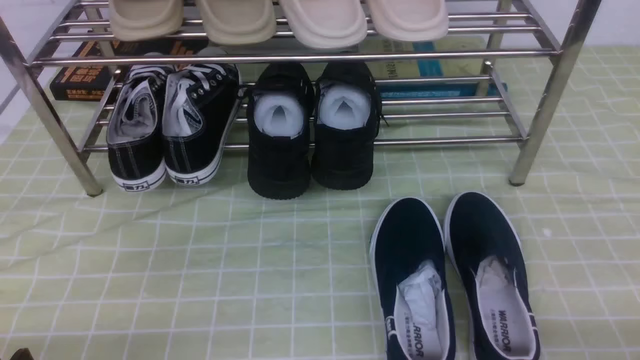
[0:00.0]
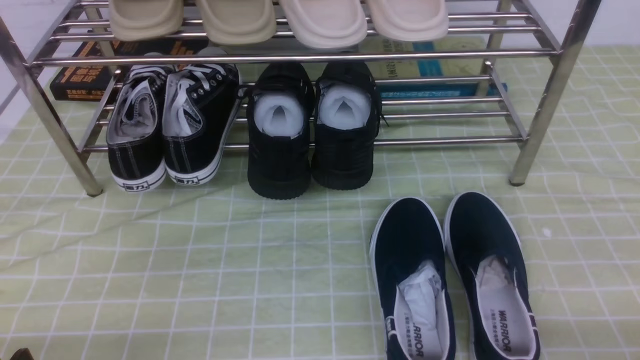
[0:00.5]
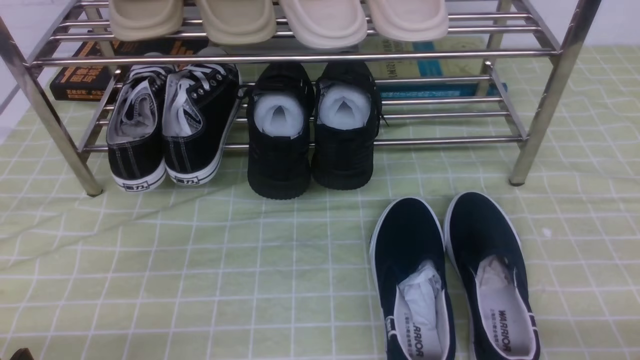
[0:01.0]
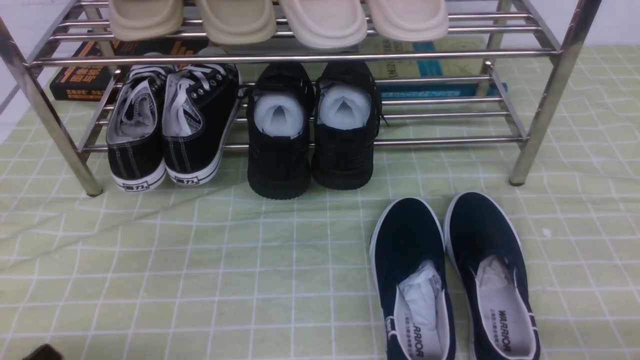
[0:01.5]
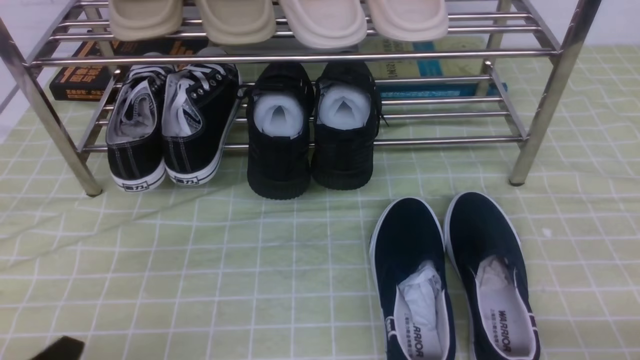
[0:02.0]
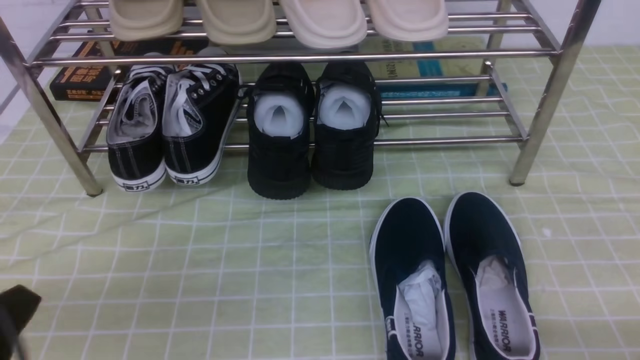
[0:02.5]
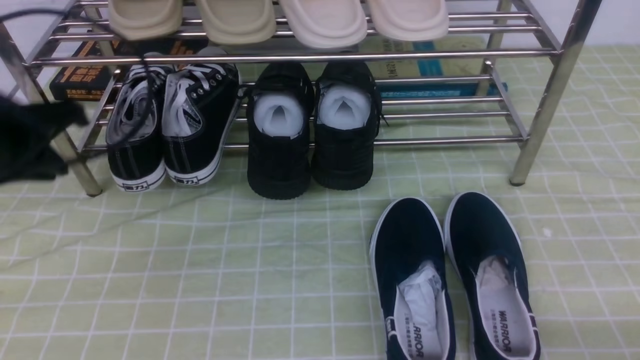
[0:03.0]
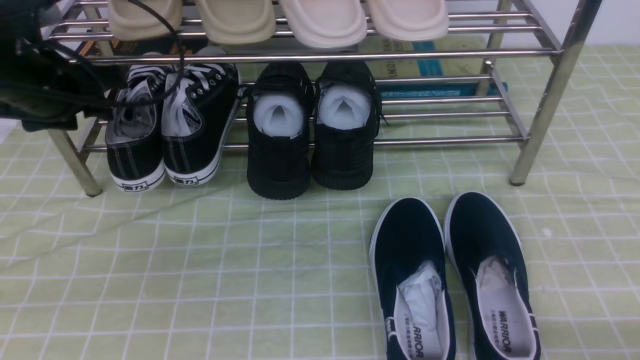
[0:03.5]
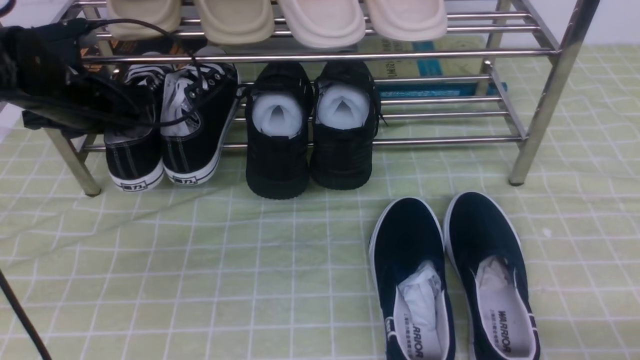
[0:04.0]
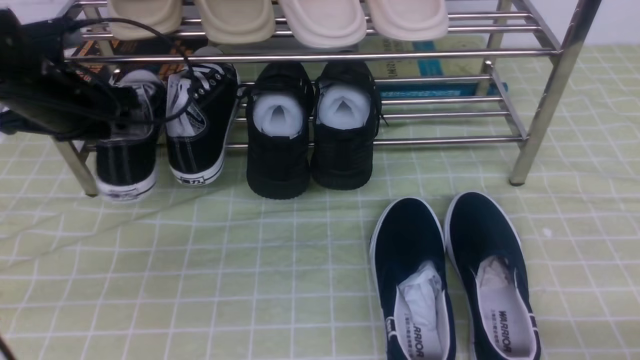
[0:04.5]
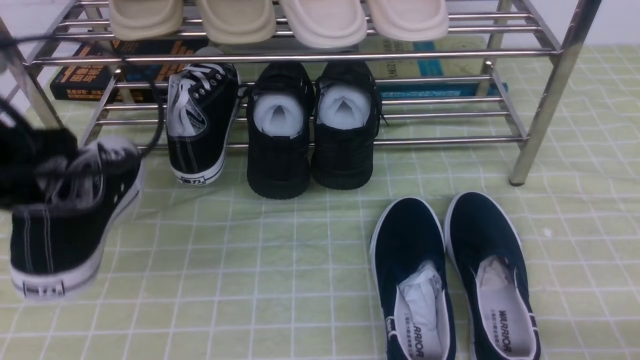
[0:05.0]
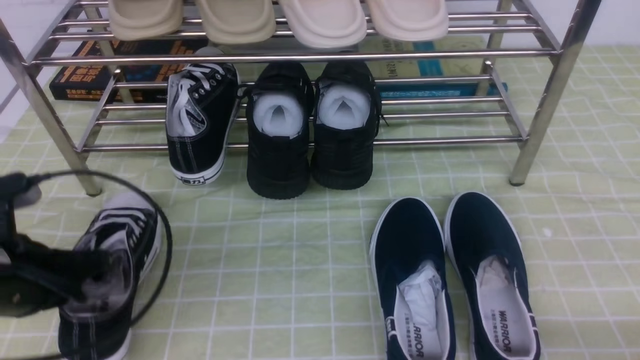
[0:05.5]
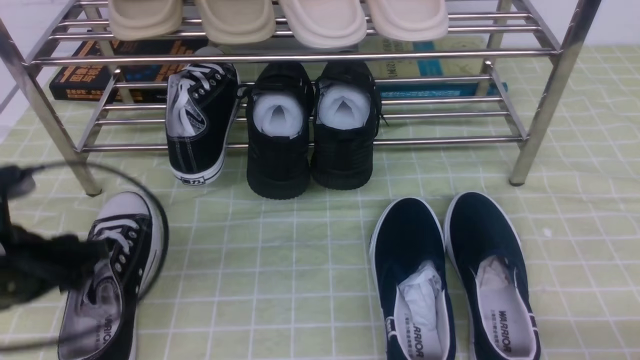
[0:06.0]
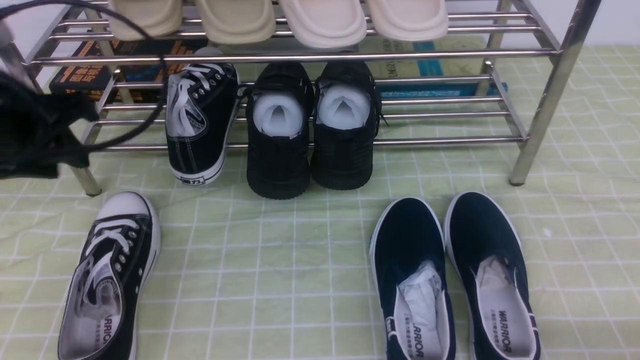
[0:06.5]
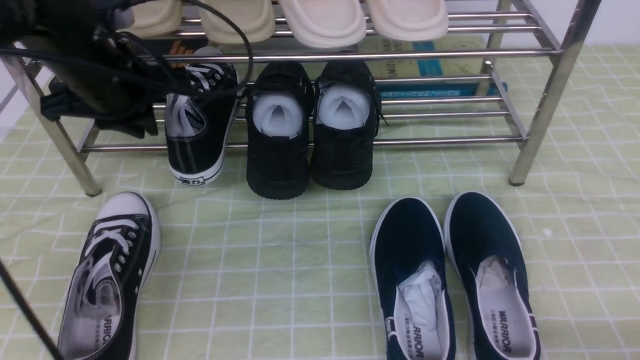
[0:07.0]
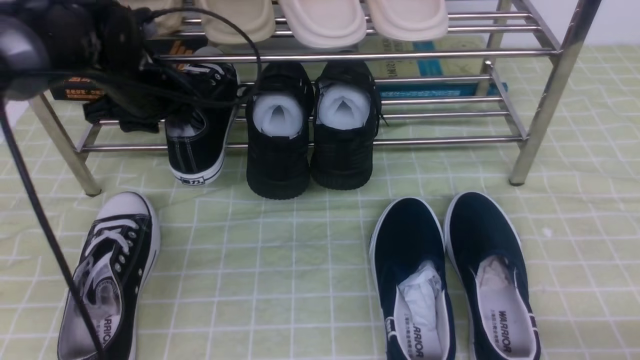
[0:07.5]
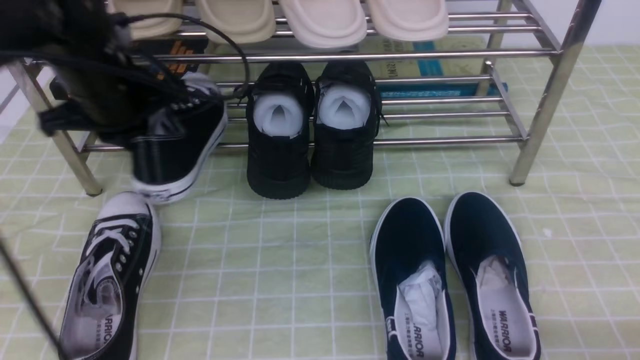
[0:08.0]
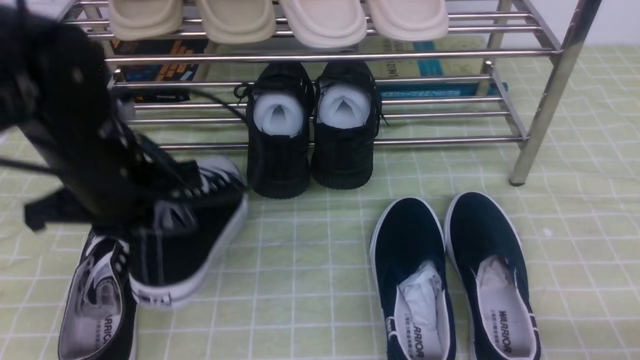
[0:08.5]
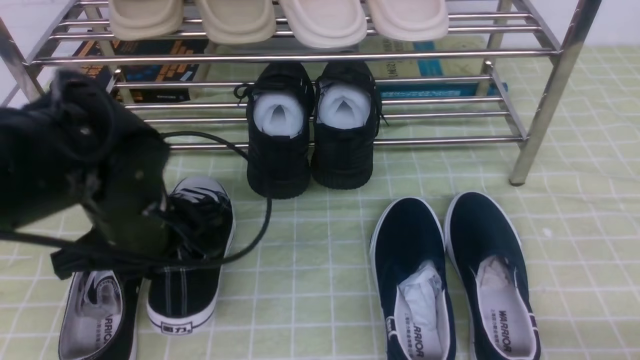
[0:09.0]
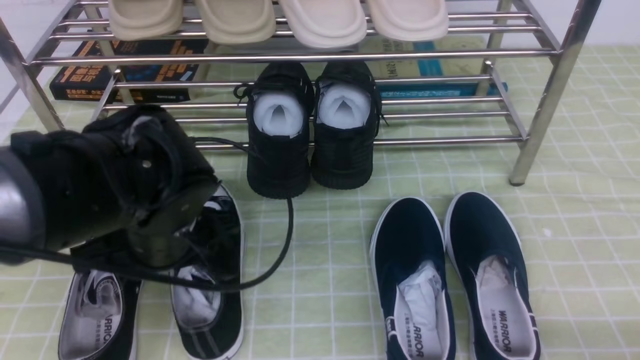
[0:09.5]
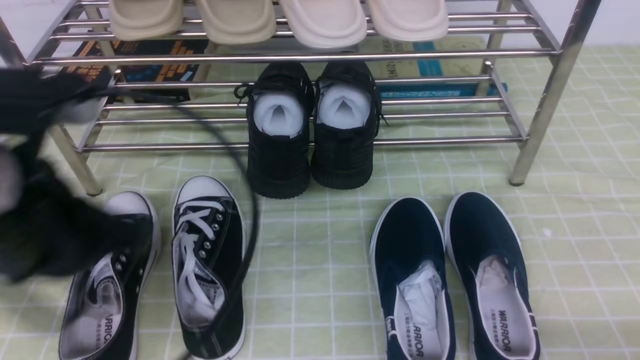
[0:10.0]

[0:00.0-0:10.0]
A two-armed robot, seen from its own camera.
Step, 0:00.0 to 0:04.0: use the left arm to clamp a shoe on the left side of the shoe rack.
Step, 0:04.5 to 0:05.5: Use your left arm to remove the clamped shoe from the shoe rack and put it down.
Step, 0:06.0 to 0:07.5: use the left arm to clamp a shoe on the left side of the shoe rack.
Step, 0:08.0 to 0:09.5: Use your left arm to remove the clamped shoe from the shoe rack and put it down.
0:02.0 to 0:04.0: The left gripper is displaced forward by roughly 35 cm, and closes and opens again.
0:04.0 to 0:06.0: The left gripper goes about 20 cm backward, and closes, then reopens.
0:06.0 to 0:08.0: The left gripper heads forward, to the right and upward, covering some 15 cm, and closes its fingers.
0:08.0 to 0:10.0: The left gripper moves backward, about 20 cm, and opens, then closes again.

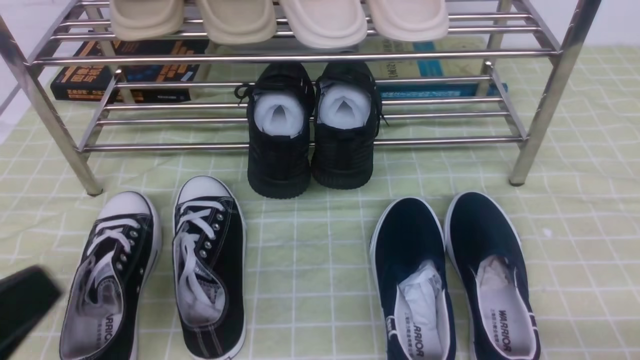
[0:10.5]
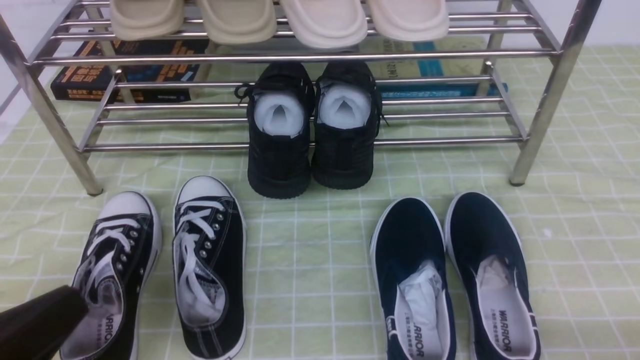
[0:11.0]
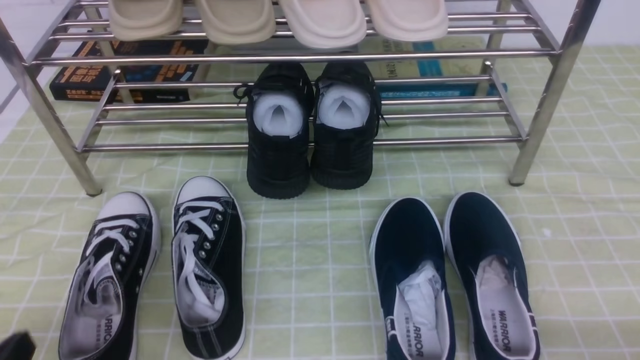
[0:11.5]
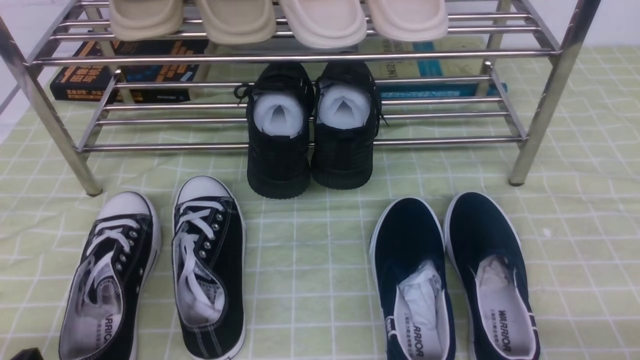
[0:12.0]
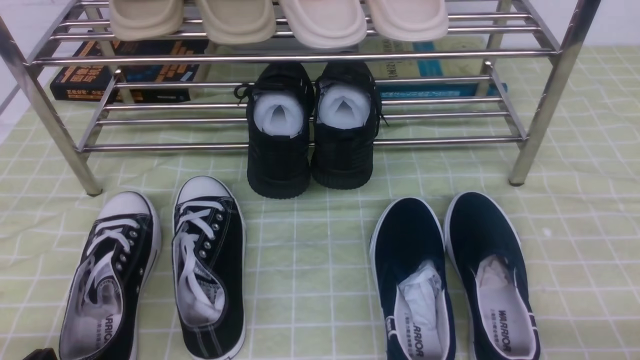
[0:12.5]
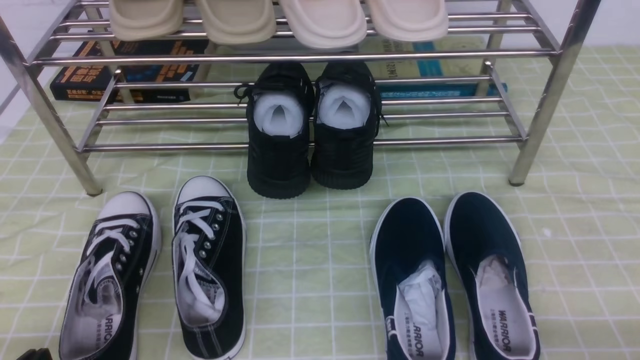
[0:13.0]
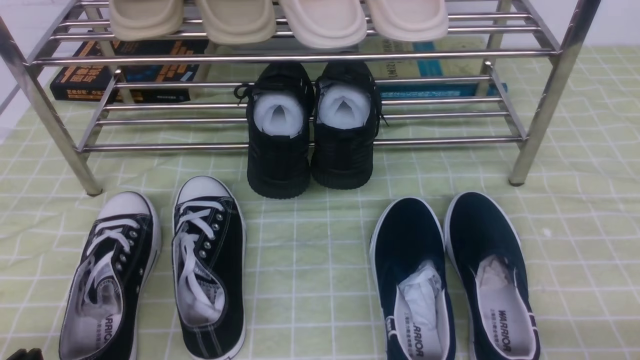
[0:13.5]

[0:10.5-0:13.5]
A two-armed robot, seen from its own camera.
0:10.5 to 0:12.0: The left gripper goes about 15 cm downward.
